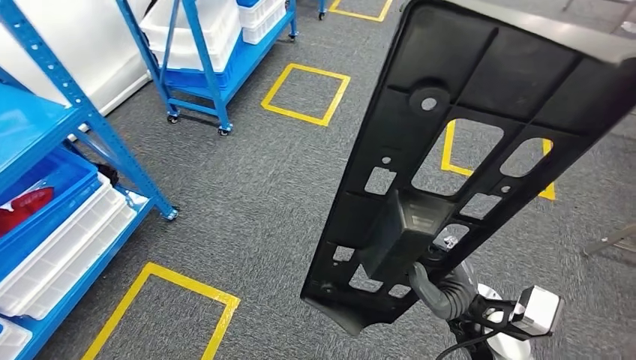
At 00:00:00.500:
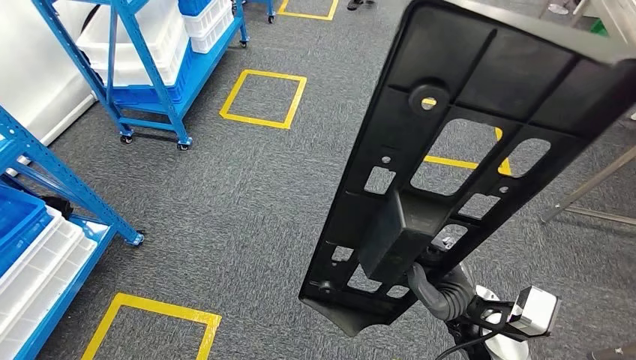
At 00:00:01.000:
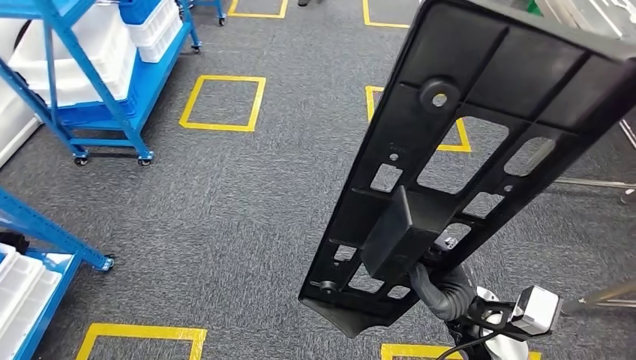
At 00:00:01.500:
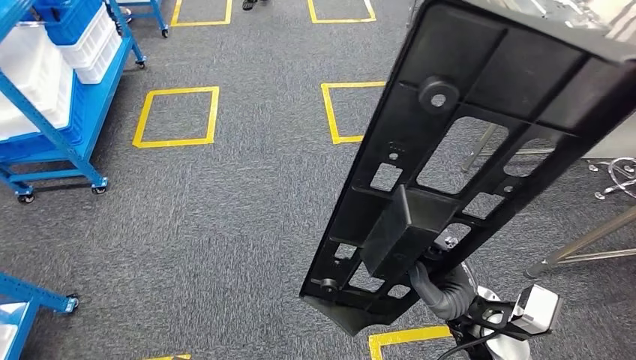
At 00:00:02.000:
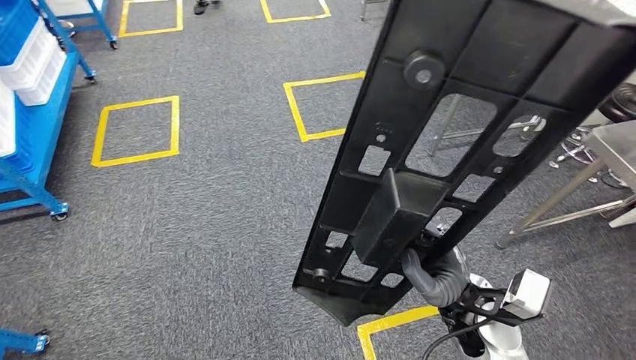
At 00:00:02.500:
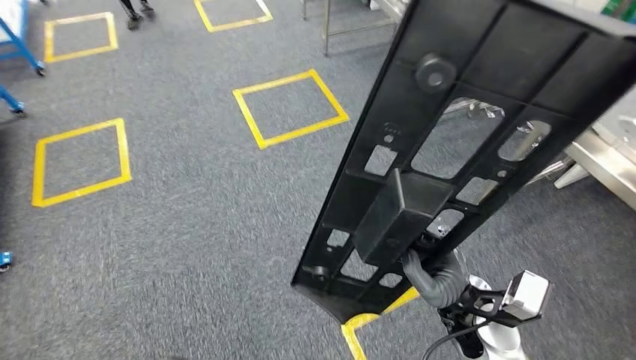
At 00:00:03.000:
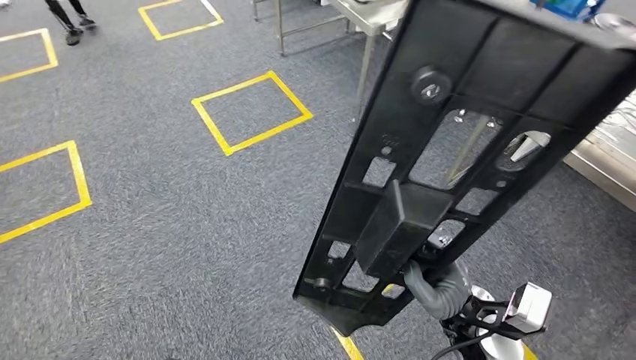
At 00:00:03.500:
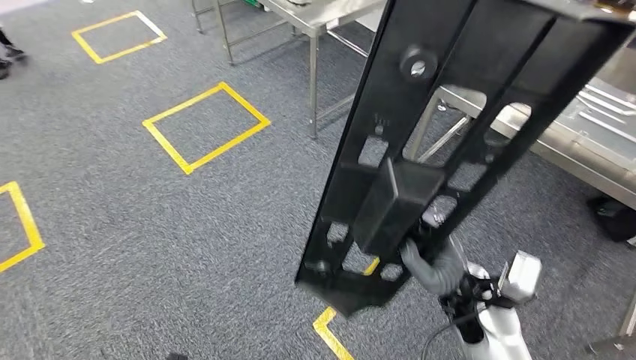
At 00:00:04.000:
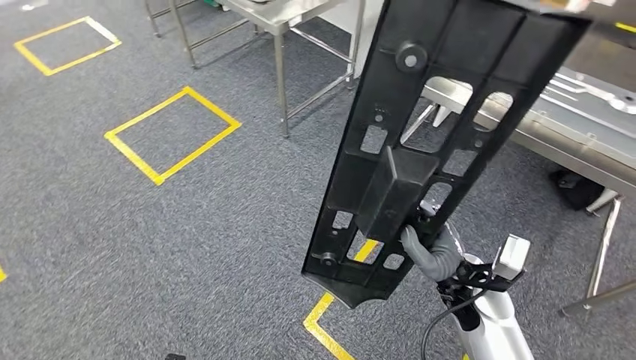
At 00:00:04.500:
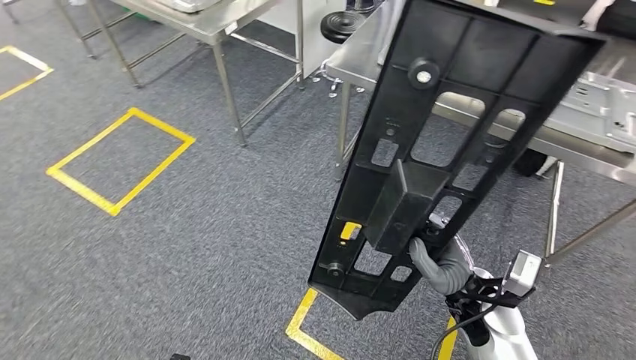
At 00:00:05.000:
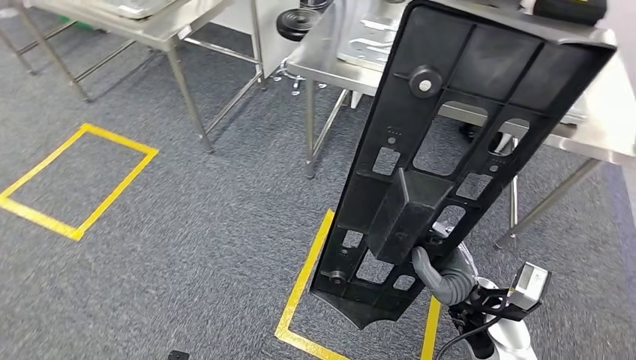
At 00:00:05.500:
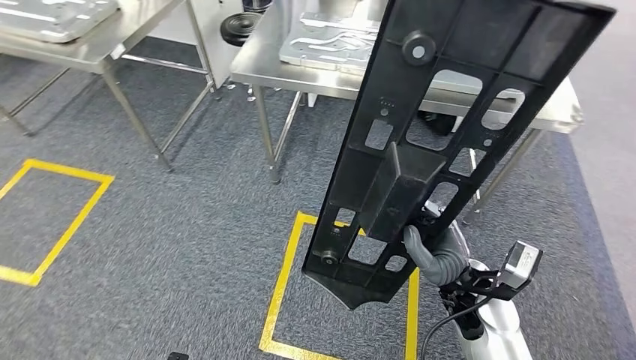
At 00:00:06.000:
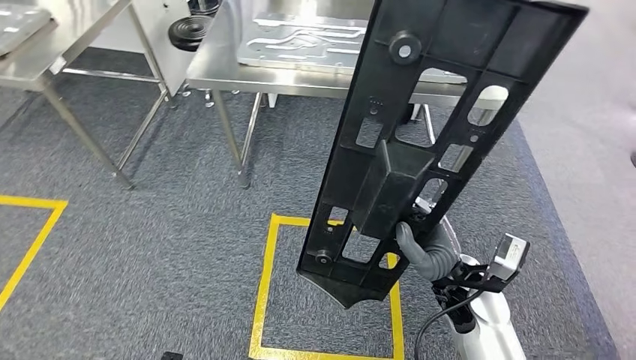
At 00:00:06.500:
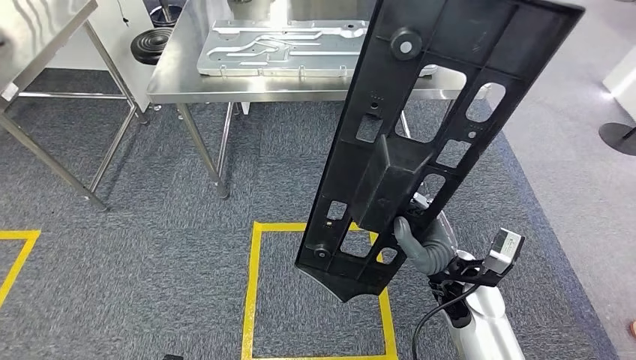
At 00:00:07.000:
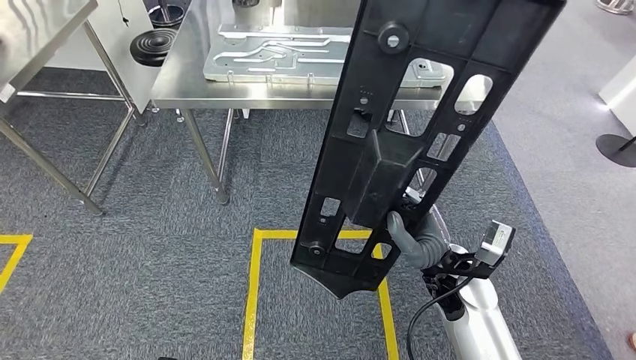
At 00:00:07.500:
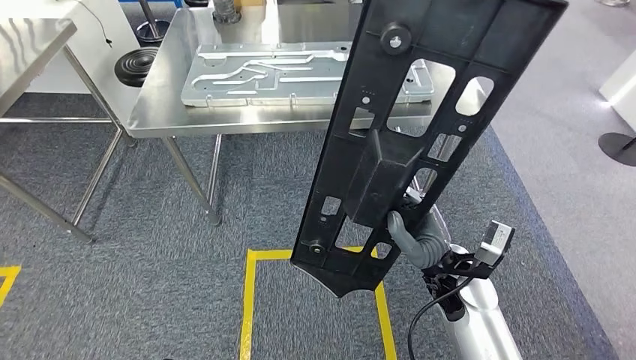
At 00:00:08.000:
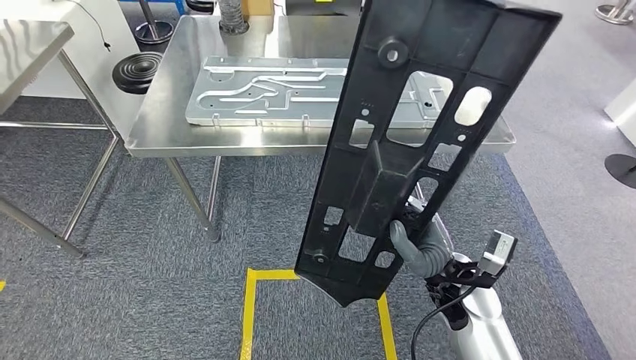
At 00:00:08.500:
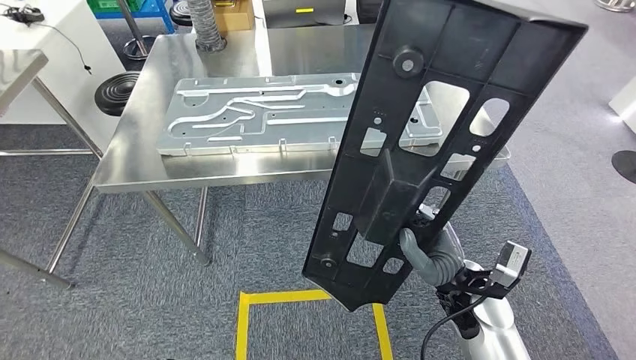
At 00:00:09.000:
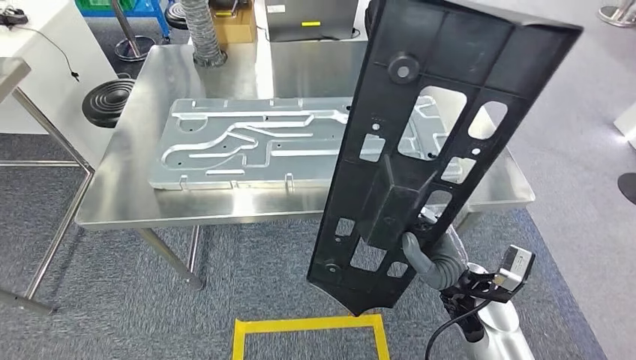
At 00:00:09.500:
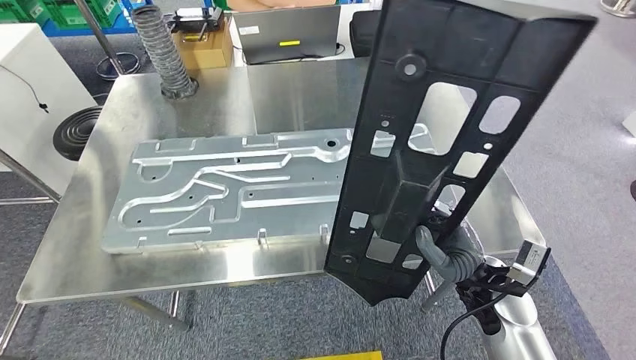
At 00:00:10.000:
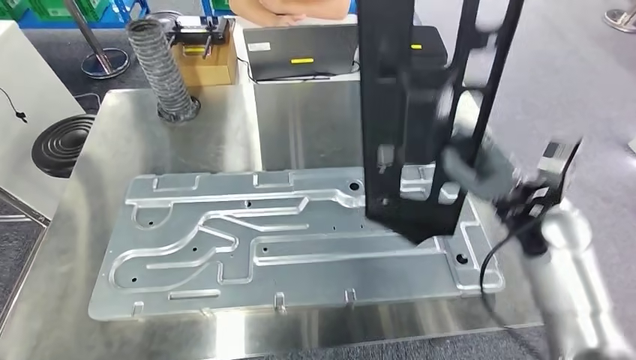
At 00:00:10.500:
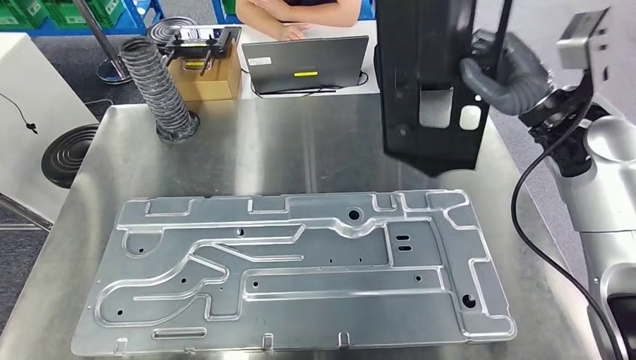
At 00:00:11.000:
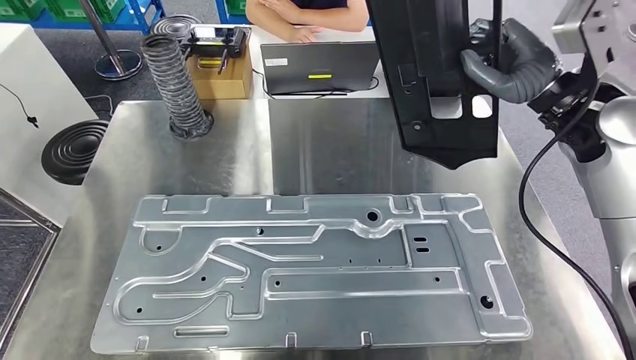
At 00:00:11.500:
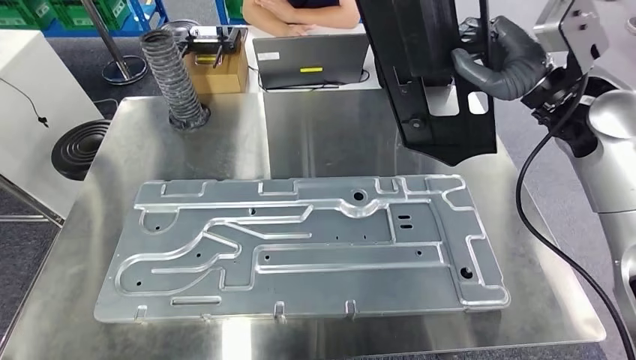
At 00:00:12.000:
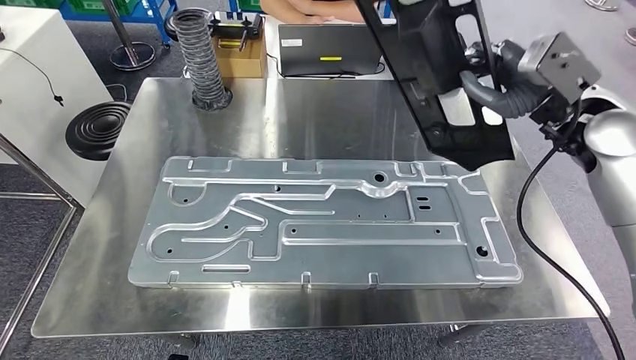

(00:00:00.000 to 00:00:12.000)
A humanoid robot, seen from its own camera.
Step, 00:00:00.000 - 00:00:10.000: Move the large material to the workbench.

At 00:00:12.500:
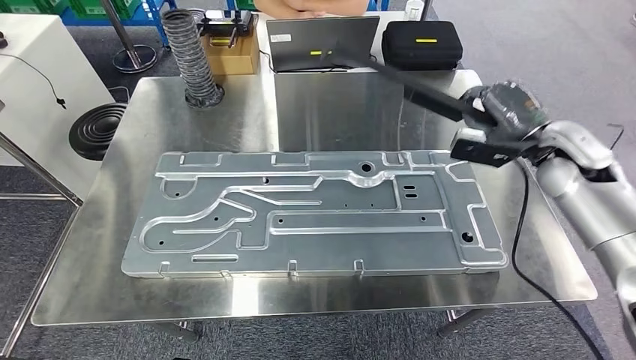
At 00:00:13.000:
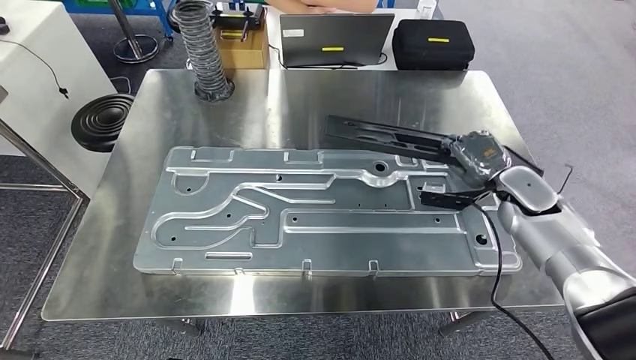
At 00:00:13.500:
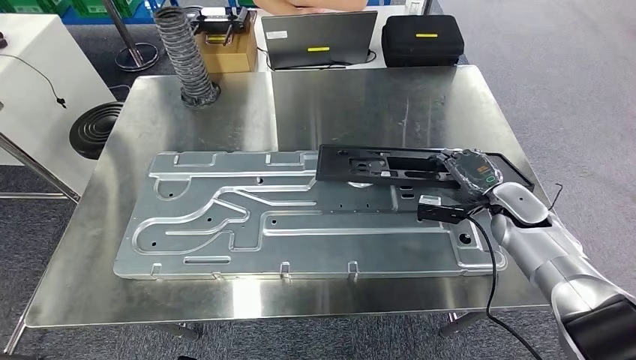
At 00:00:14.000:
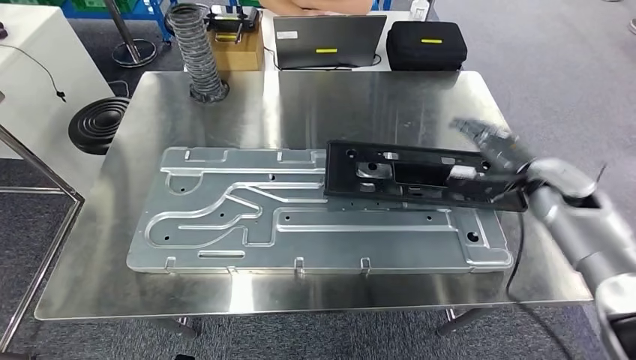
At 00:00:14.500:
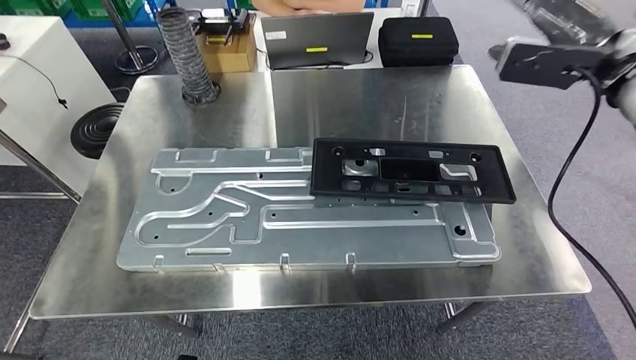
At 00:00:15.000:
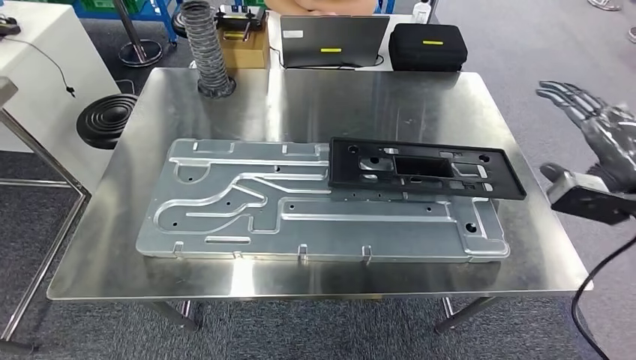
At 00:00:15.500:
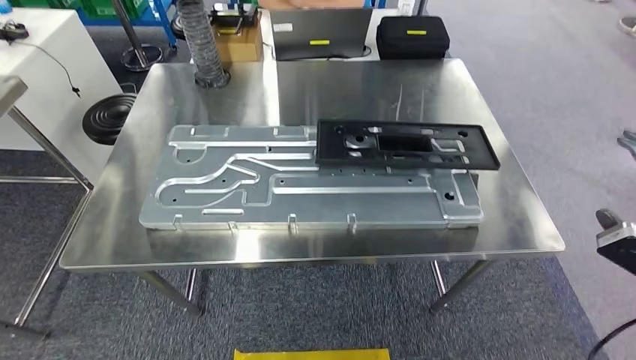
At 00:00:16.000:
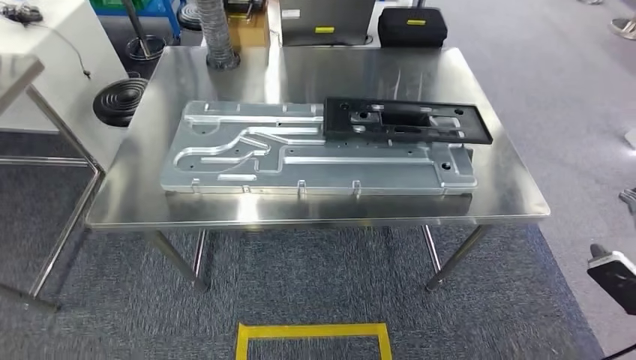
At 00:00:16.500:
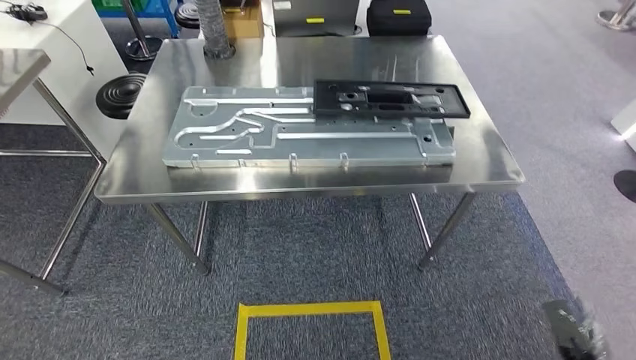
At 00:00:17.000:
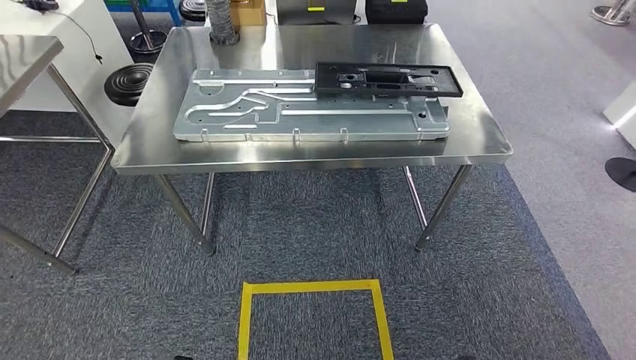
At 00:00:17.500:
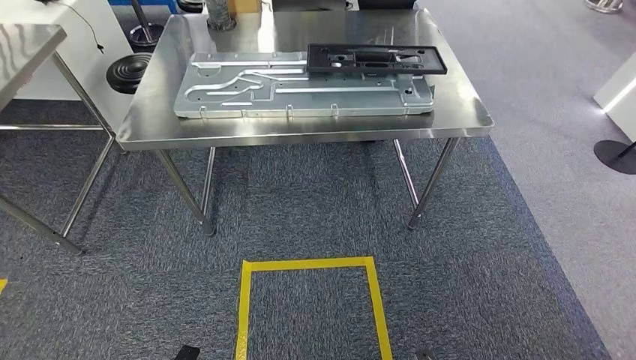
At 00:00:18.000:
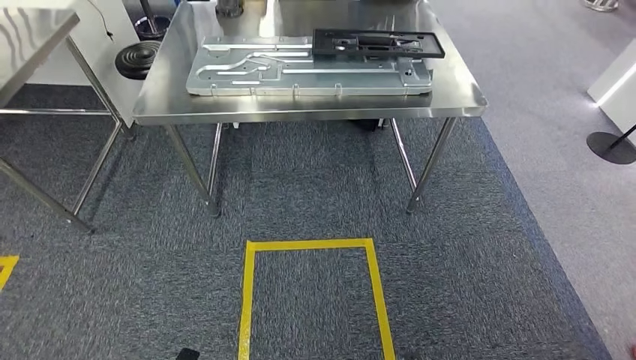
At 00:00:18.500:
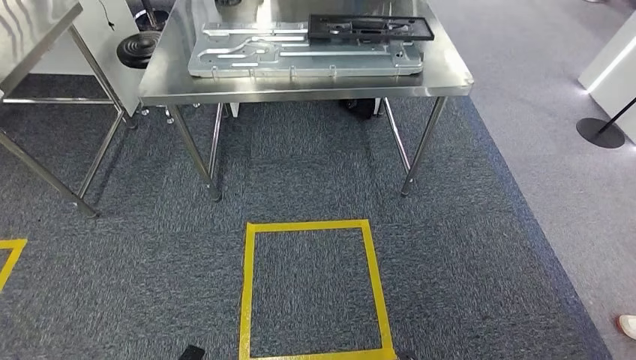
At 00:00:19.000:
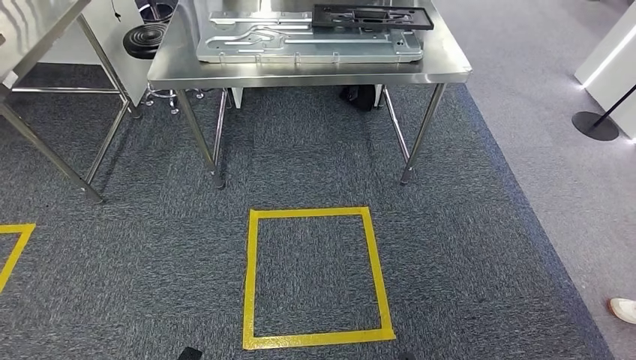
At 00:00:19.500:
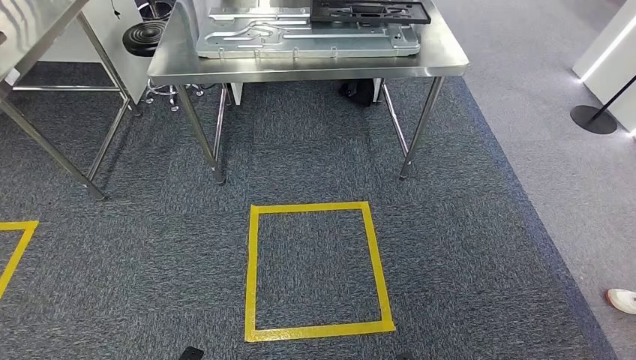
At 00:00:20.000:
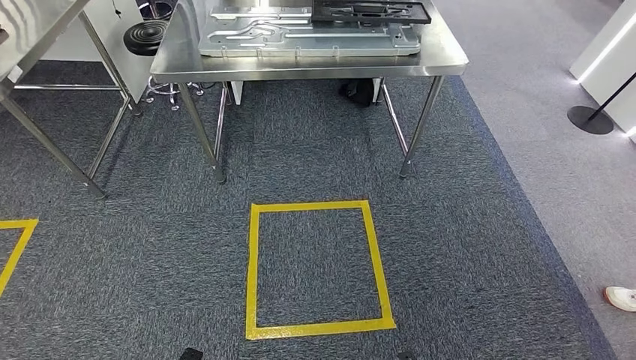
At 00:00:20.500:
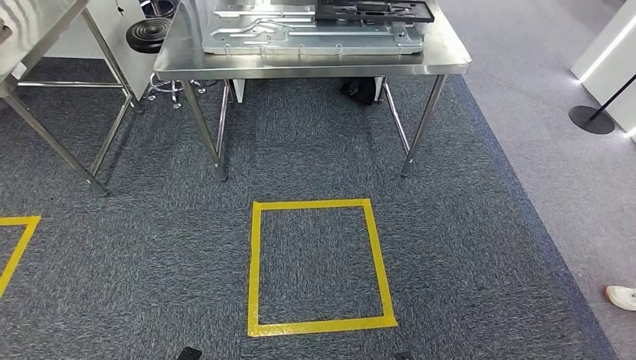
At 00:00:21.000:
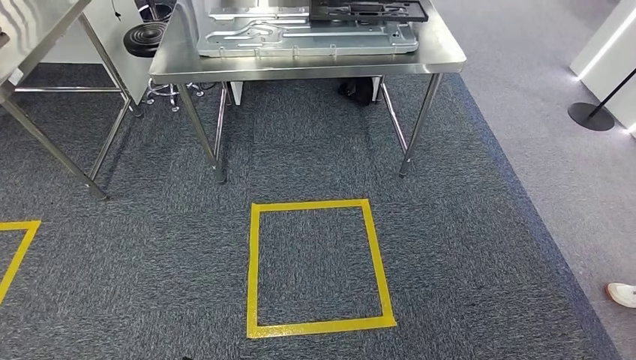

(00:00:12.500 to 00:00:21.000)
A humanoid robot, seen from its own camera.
Step, 00:00:12.500 - 00:00:15.000: Insert the large material into the corresponding slot on the workbench.
Step, 00:00:15.500 - 00:00:21.000: Return to the initial position at the shelf.
00:00:19.000 - 00:00:21.000: There are only small adjustments of the hands.
